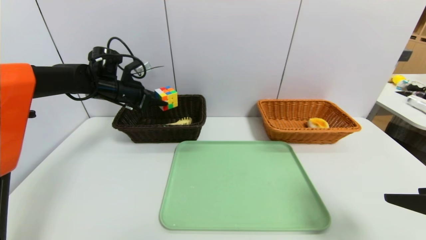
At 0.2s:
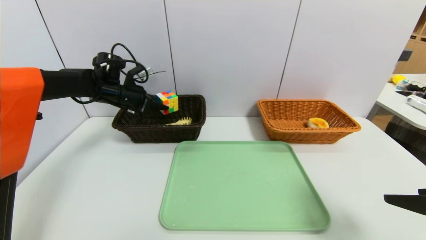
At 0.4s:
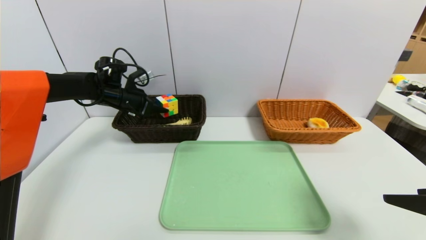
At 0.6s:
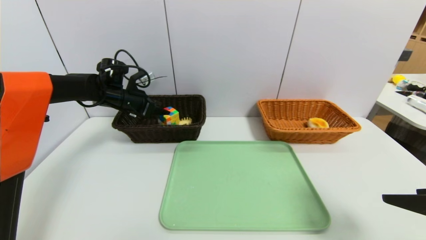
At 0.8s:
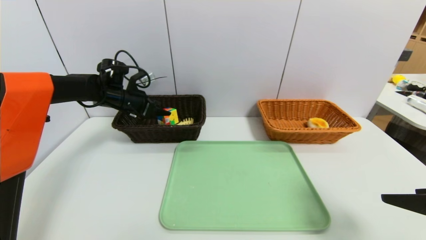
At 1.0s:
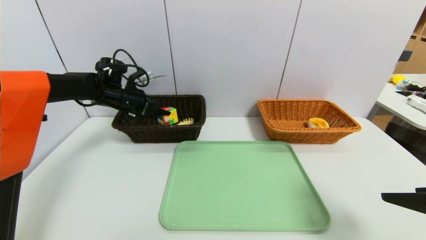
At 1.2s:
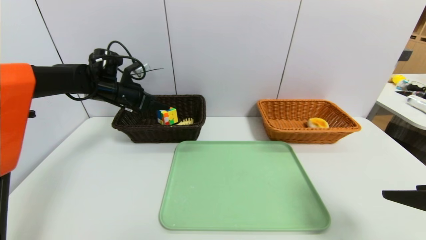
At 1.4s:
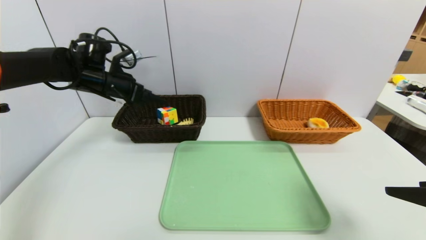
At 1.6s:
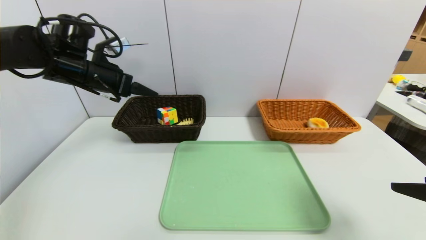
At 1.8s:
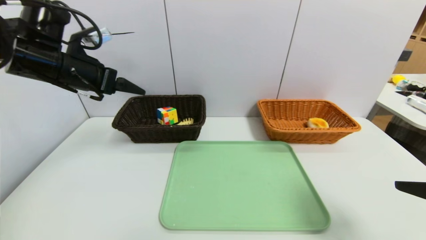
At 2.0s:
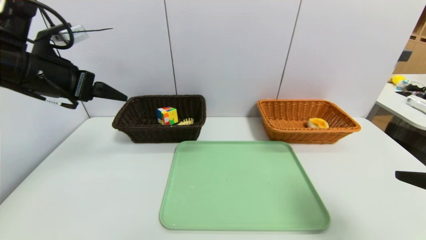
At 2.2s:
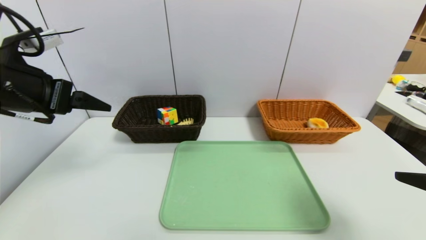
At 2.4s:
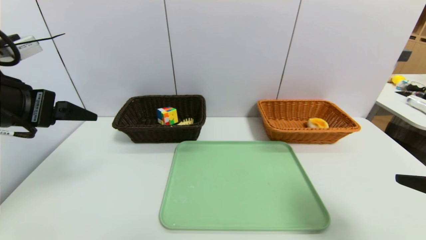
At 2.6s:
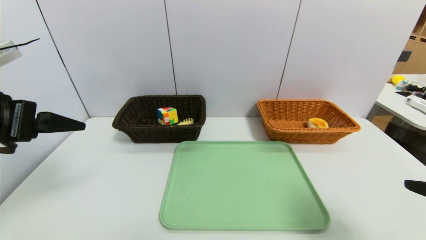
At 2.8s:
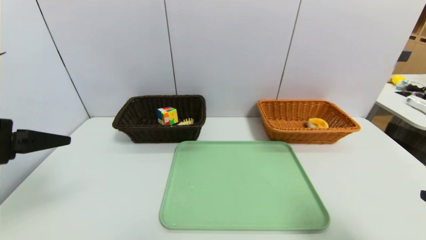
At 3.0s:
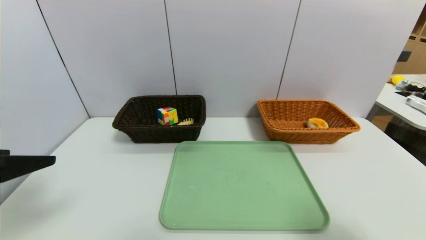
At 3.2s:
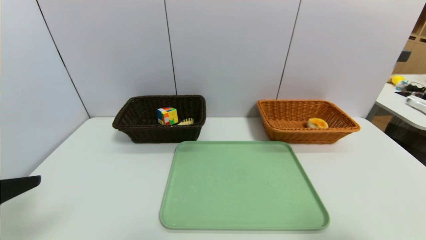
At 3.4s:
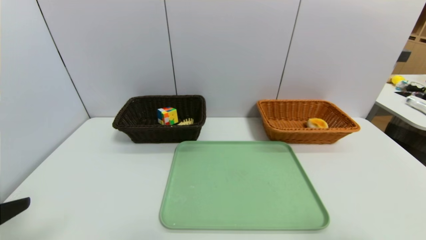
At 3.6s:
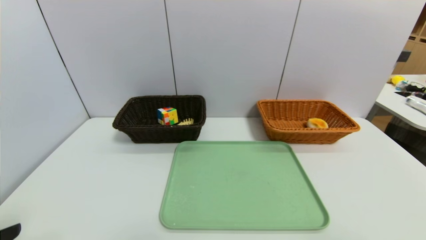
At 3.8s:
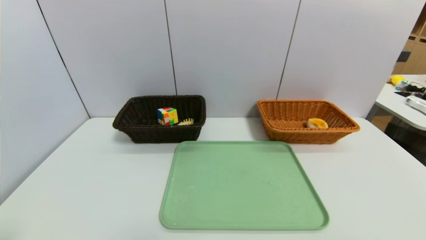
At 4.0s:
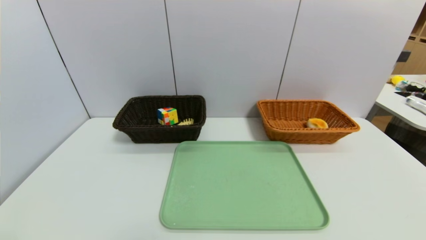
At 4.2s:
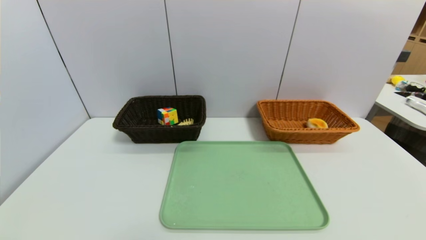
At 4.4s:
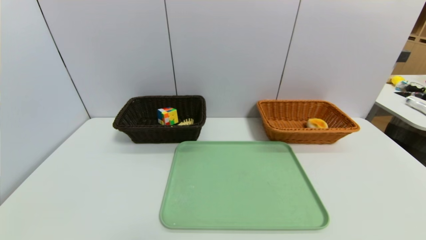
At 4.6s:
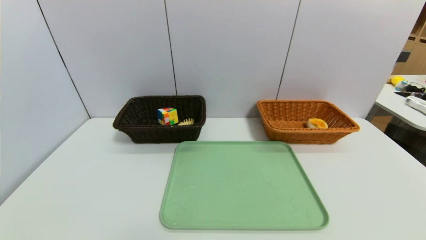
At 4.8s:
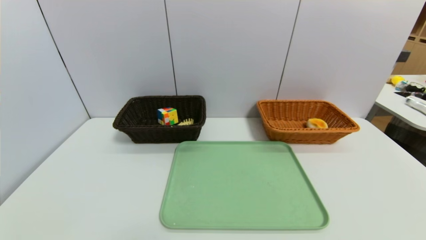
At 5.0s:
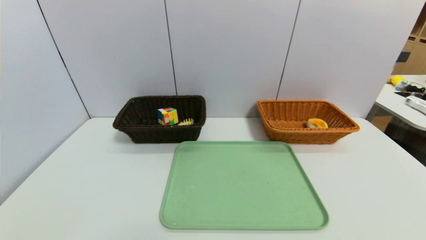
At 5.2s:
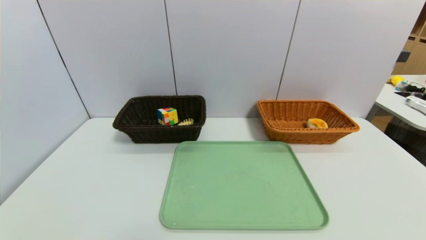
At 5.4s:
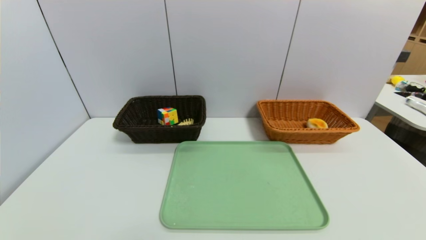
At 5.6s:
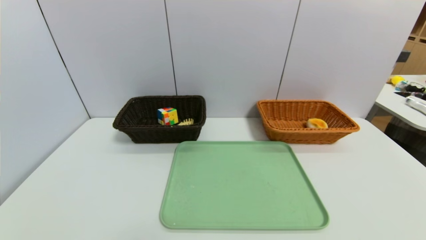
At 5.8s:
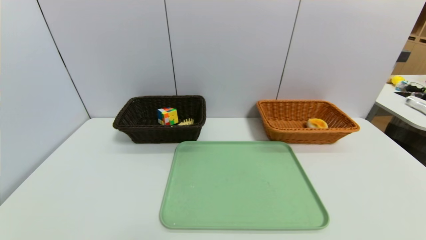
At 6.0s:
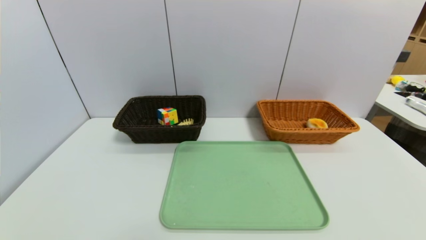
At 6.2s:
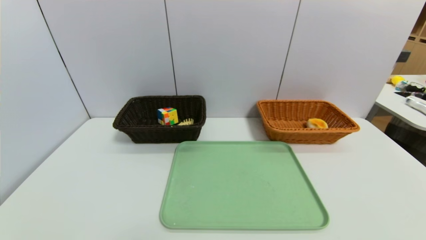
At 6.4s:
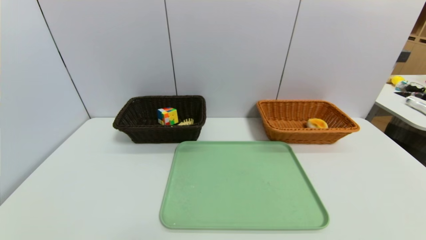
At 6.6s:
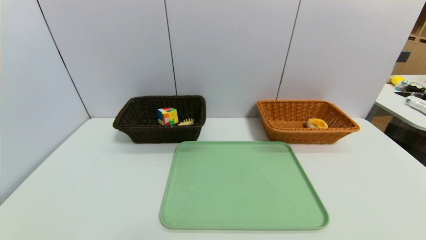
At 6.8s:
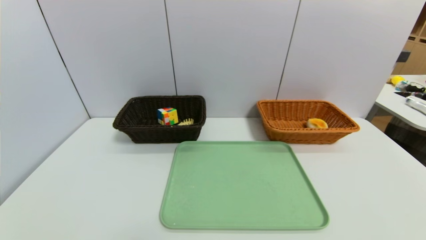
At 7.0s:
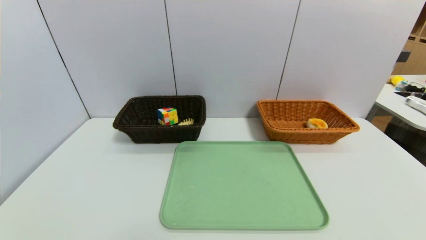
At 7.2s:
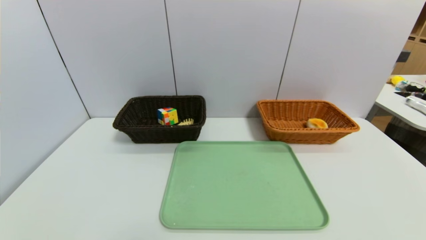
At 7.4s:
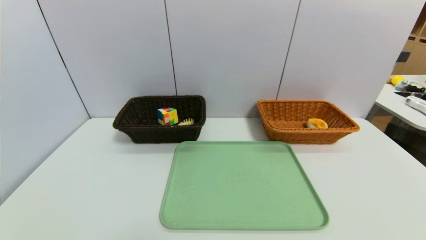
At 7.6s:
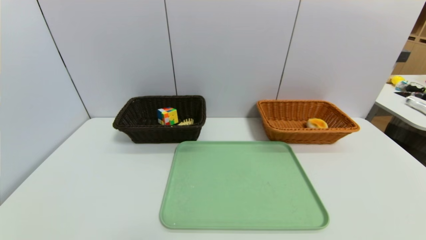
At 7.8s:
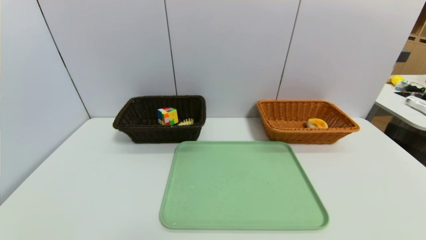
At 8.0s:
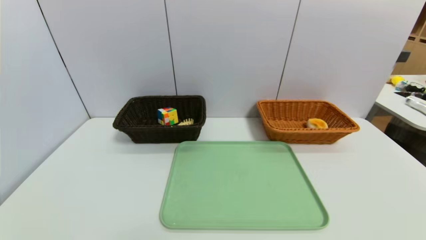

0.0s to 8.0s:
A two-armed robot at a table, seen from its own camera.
Task of the whole recording: place the food in the right basket with the right gripper, and place the non food items in the left basket with the left gripper.
0.0s to 1.6s: The left gripper shifts some 10 cm backward and upward, and opens its fingers.
1.6s to 3.2s: The right gripper heads backward, covering about 5 cm, while the left gripper moves backward, some 30 cm.
3.2s to 4.8s: The left gripper heads downward and backward, covering approximately 15 cm; the right gripper is displaced backward and downward by about 10 cm.
6.4s to 8.0s: The two grippers keep their place.

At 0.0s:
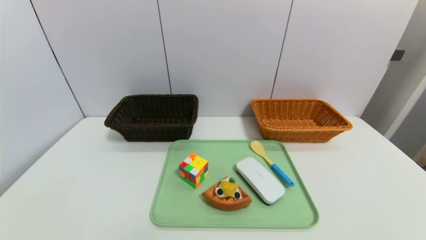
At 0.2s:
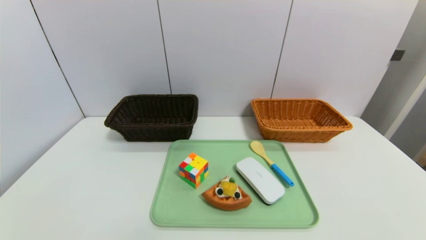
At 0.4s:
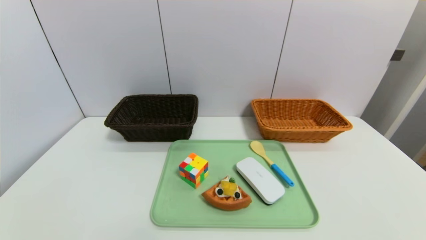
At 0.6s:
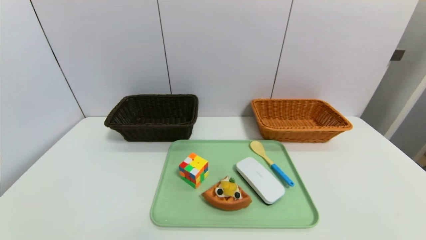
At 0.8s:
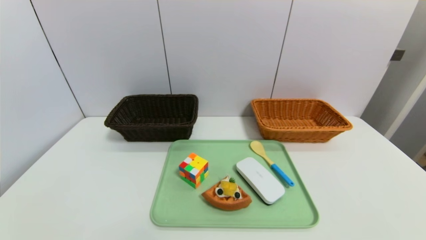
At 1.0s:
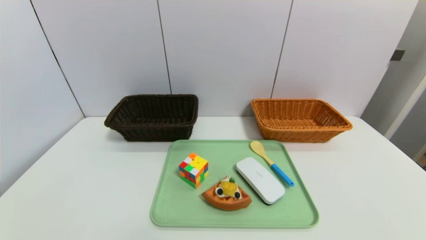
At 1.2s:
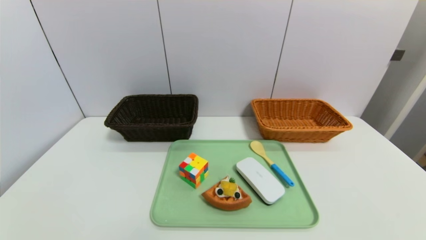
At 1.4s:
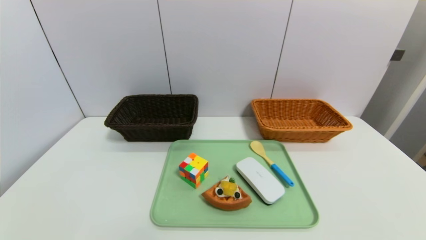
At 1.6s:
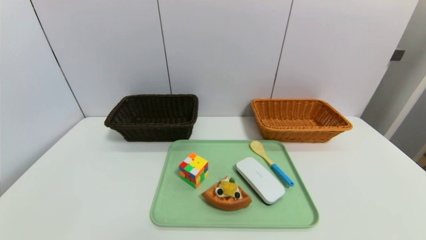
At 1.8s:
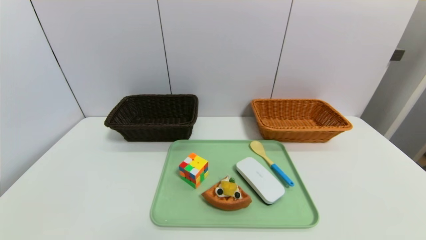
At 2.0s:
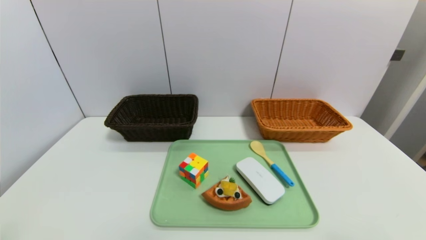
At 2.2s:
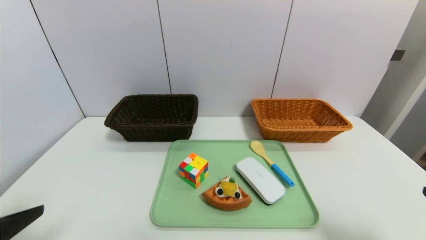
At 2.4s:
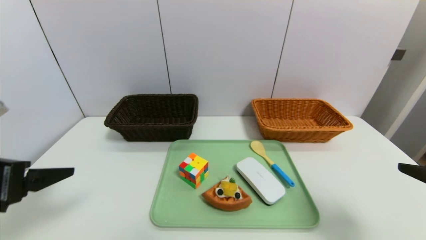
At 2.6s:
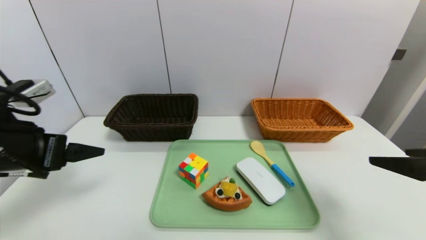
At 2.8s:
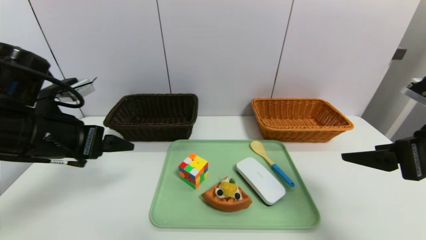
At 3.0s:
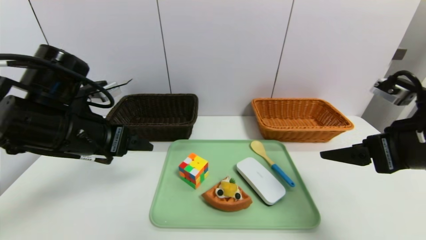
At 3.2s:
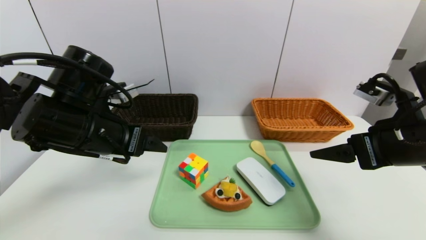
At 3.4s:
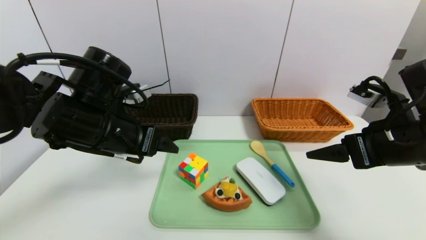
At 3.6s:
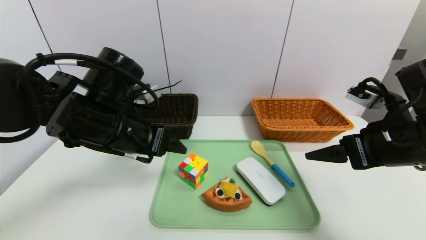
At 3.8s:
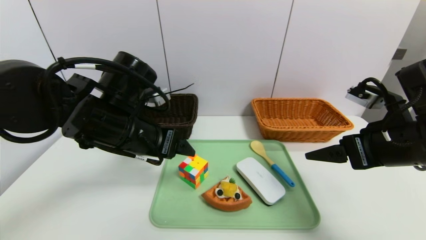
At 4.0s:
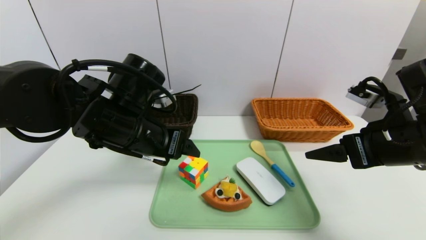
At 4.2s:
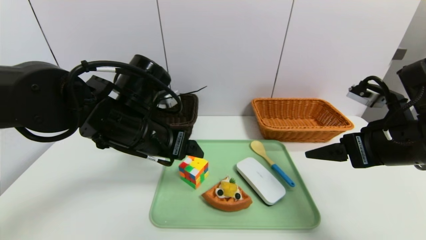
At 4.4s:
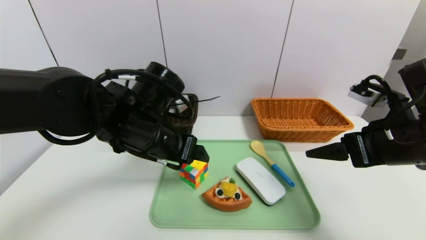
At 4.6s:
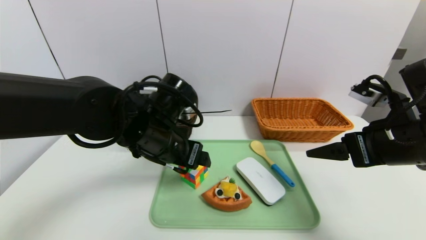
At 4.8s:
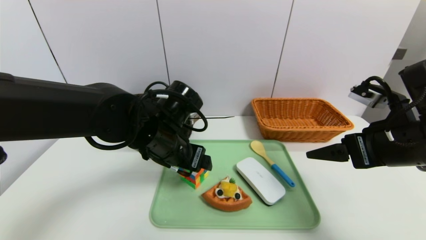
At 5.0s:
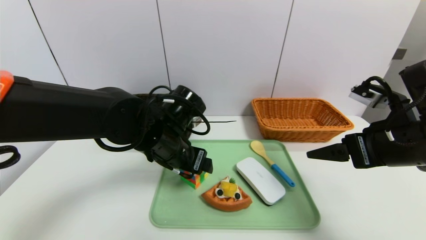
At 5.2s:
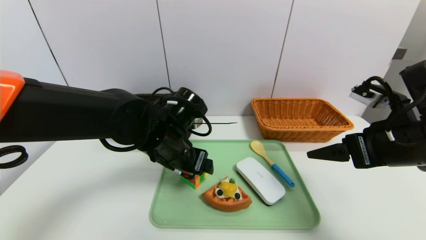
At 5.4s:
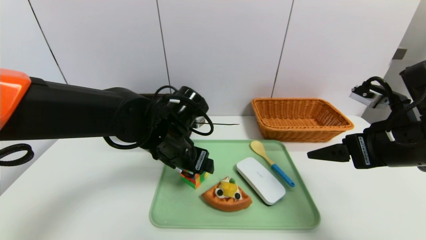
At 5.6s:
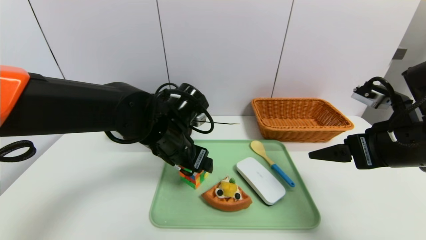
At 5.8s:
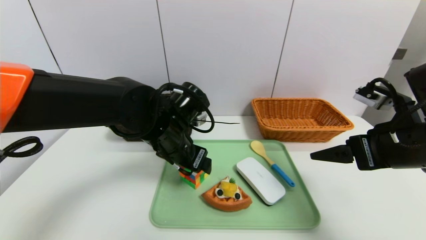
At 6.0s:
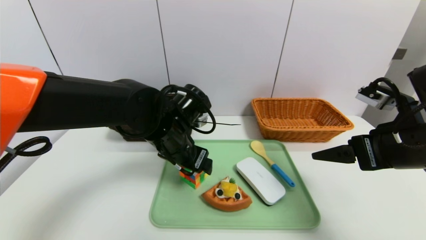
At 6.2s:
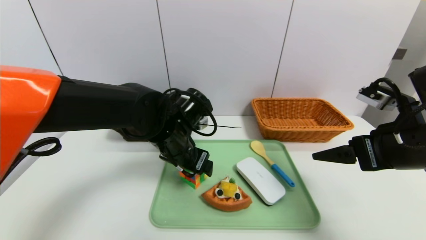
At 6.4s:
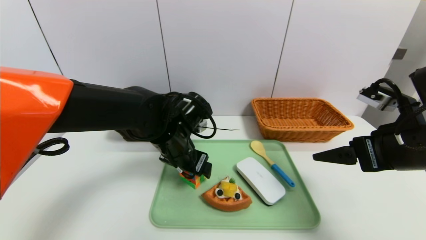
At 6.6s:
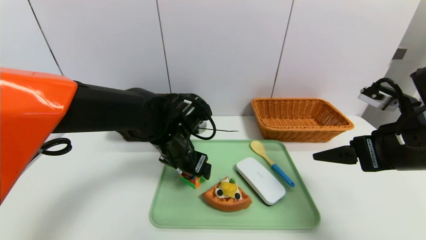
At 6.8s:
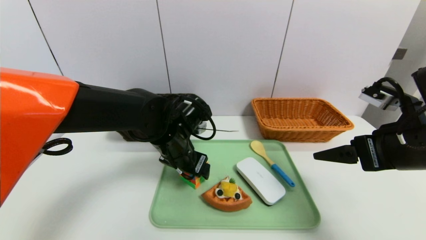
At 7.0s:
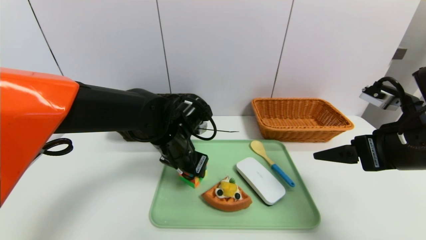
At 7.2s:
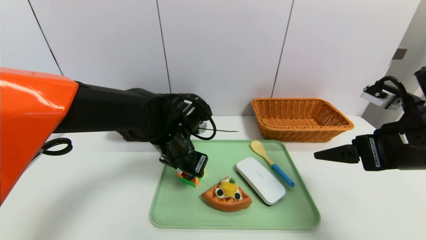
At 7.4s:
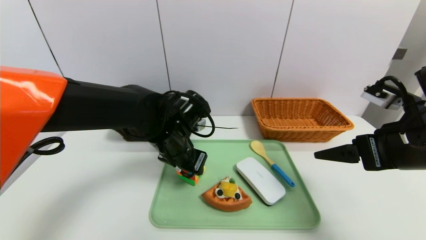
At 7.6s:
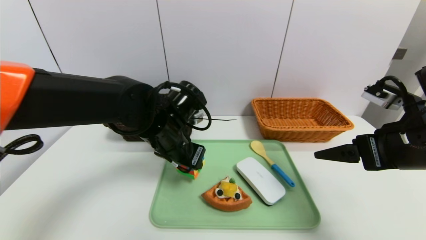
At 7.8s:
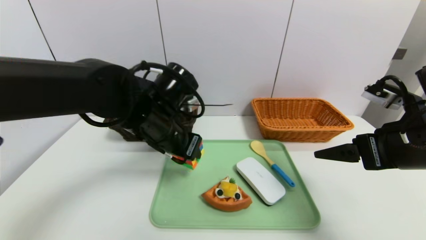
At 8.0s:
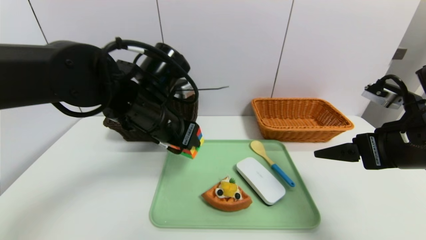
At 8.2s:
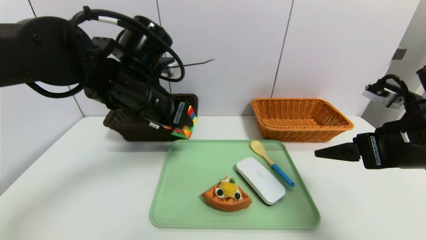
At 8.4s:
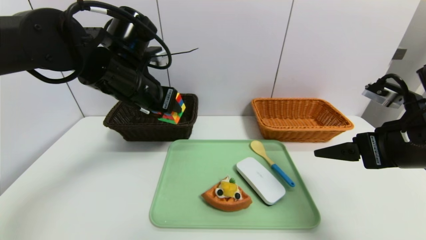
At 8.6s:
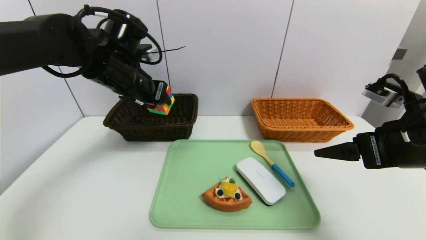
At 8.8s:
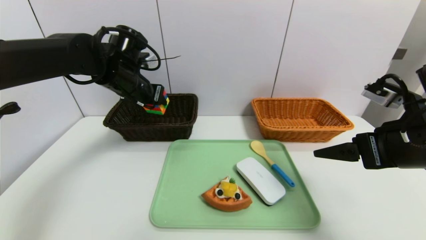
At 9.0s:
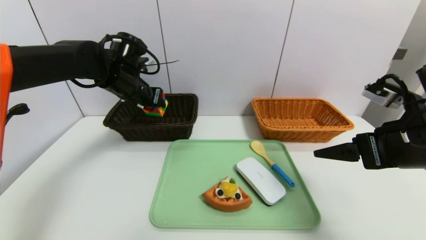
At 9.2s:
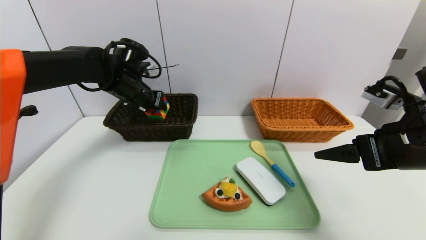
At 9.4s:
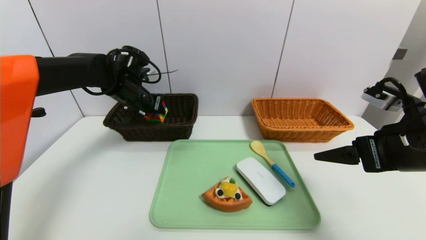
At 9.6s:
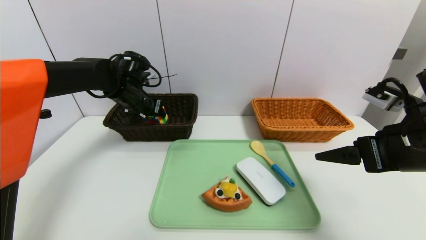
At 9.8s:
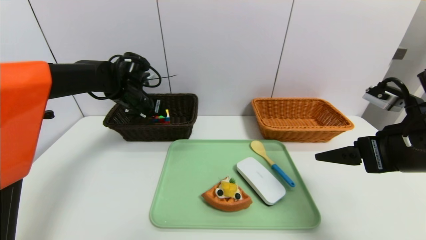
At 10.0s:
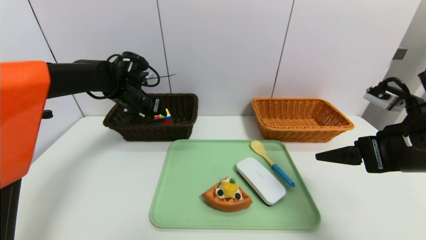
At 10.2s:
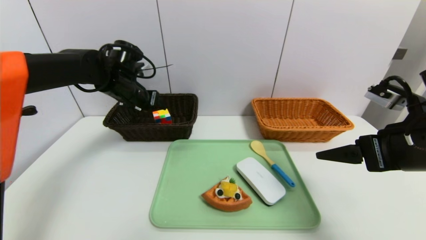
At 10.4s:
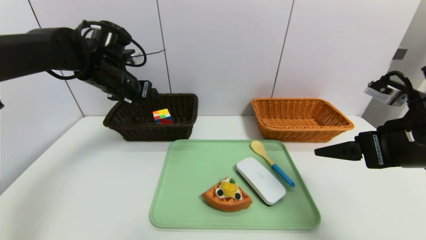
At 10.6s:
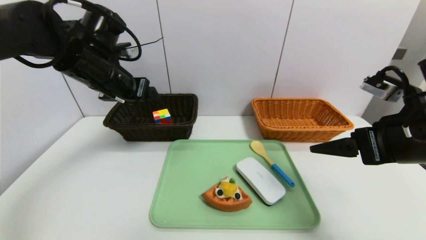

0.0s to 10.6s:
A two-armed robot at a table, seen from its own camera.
Task of the whole recording: place the food in the right basket with the right gripper, and place the non food items in the left basket with the left gripper.
Step, 0.0s to 10.2s: Grasp the rubiks cube and put it in the left basket.
1.6s to 3.0s: Both grippers move forward and upward, roughly 25 cm.
3.0s to 4.6s: The left gripper heads to the right, covering some 10 cm.
4.6s to 6.0s: There are only small adjustments of the grippers.
6.0s to 7.6s: The left gripper closes its fingers.
7.6s to 9.0s: The left gripper shifts some 15 cm to the left, forward and upward.
9.0s to 10.6s: The left gripper goes approximately 10 cm backward and upward, and opens its fingers.
